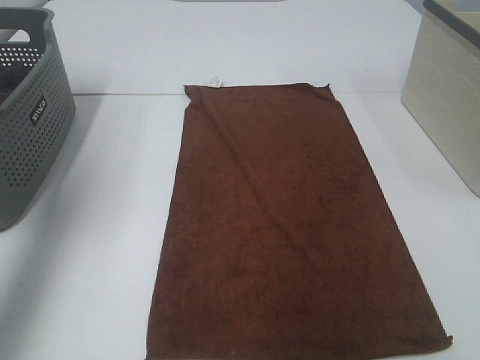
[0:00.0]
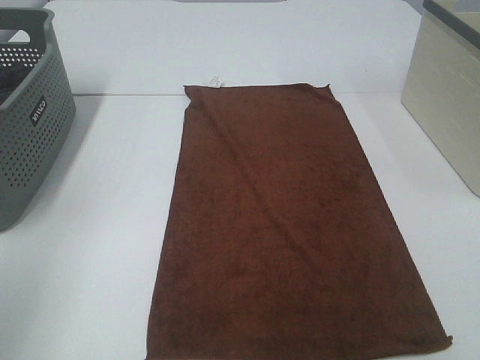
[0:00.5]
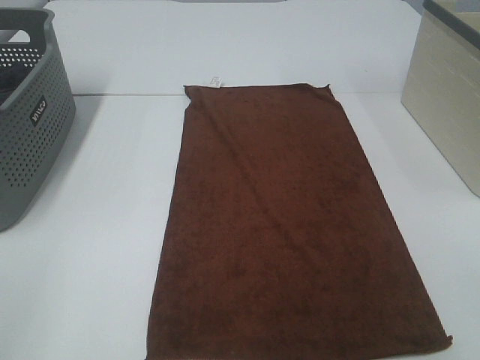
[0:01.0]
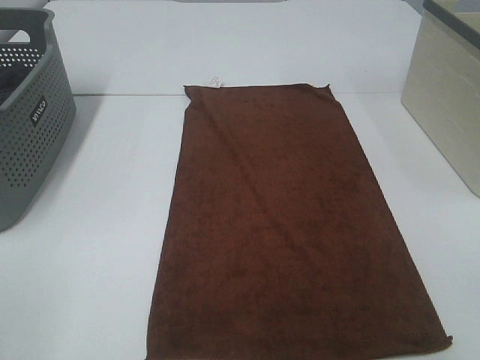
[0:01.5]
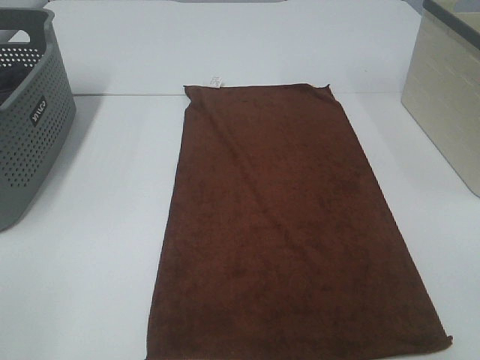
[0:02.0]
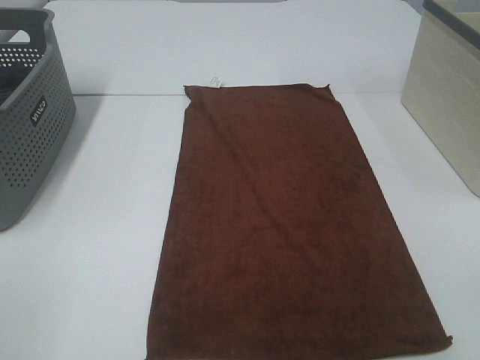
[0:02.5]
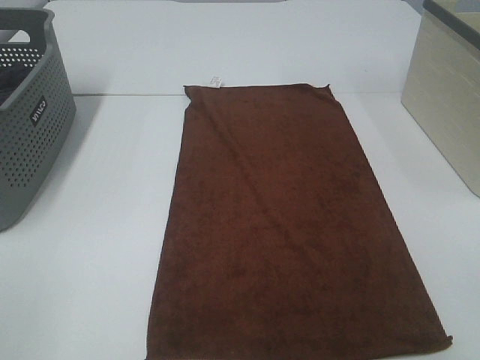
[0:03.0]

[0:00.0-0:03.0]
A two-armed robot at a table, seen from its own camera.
Task of the whole recording: Remove the towel and place it.
0:00.0 to 0:01.5: The left gripper goes approximately 30 cm backward and downward.
0:01.5 to 0:03.0: Both grippers stay about where they are.
